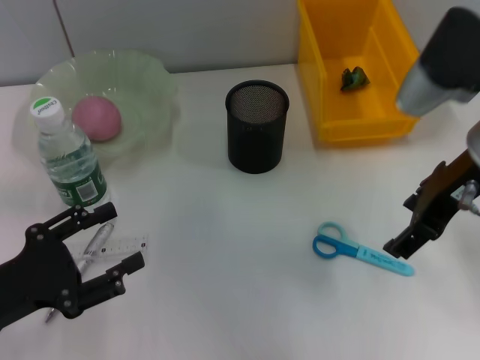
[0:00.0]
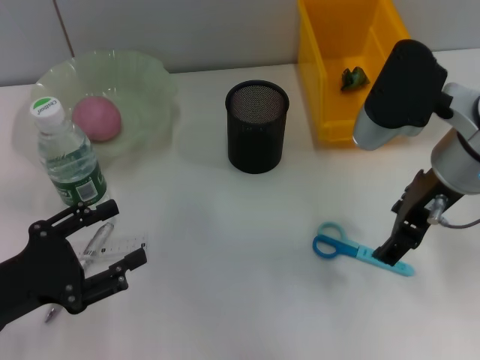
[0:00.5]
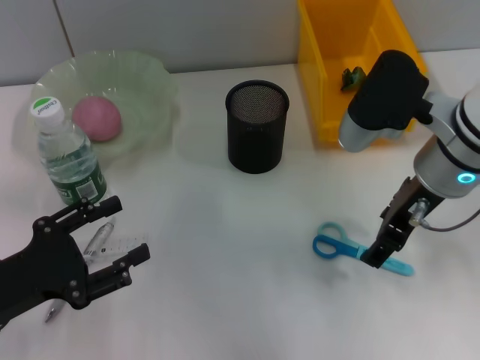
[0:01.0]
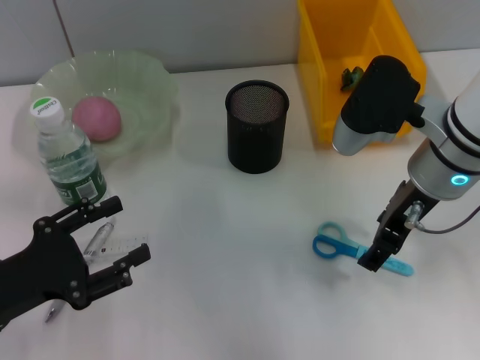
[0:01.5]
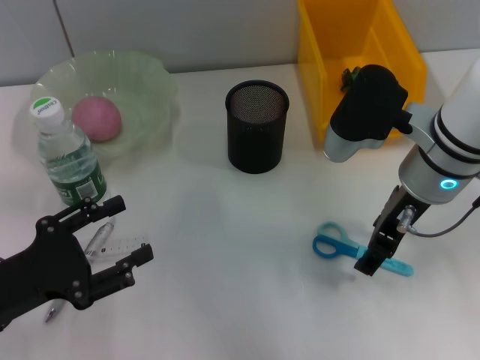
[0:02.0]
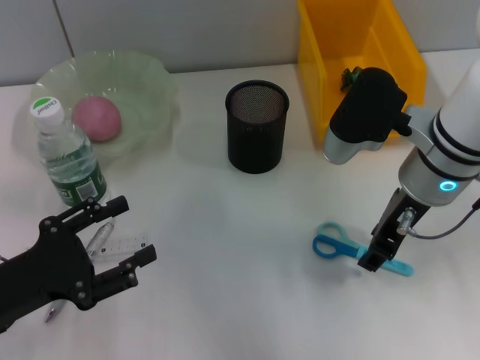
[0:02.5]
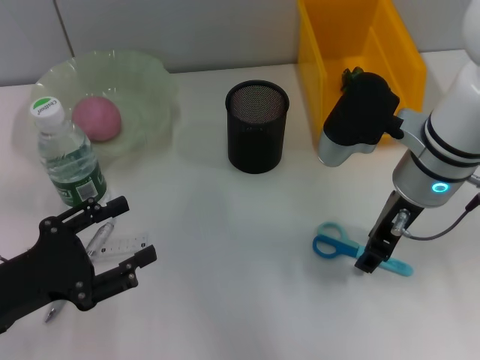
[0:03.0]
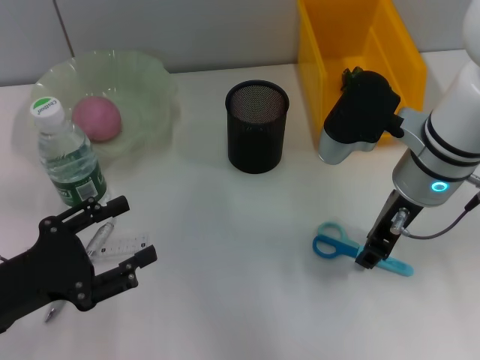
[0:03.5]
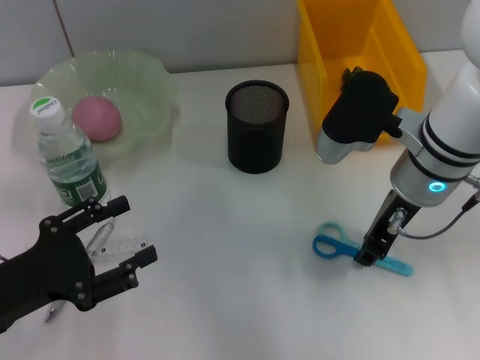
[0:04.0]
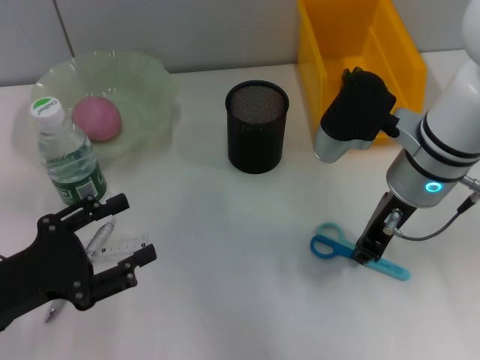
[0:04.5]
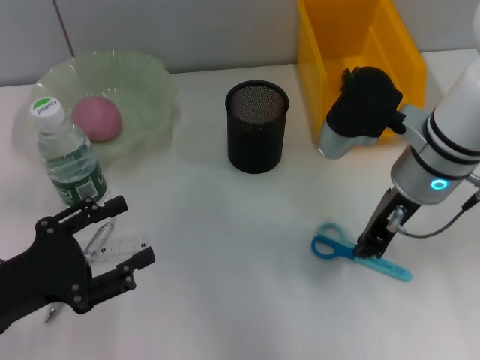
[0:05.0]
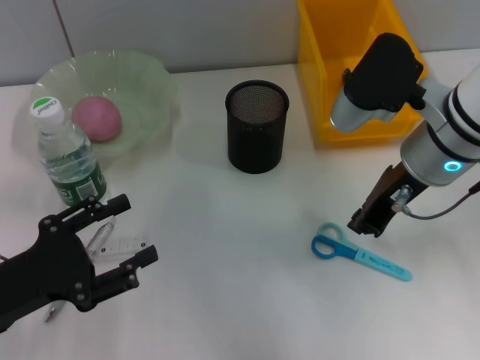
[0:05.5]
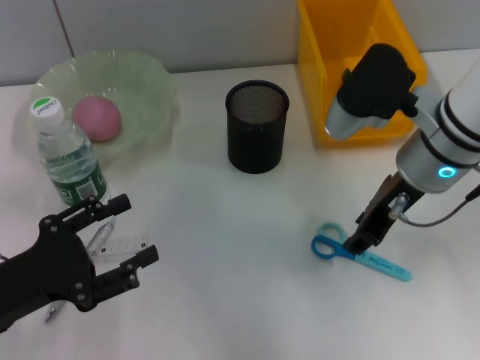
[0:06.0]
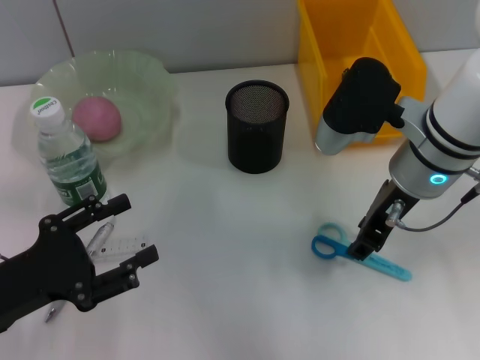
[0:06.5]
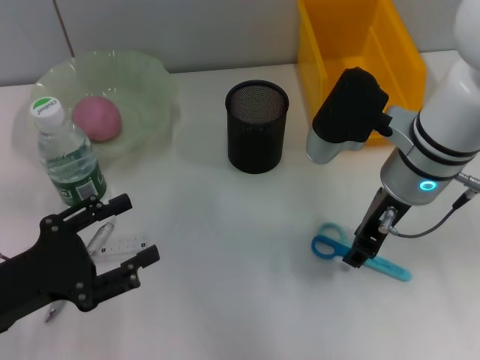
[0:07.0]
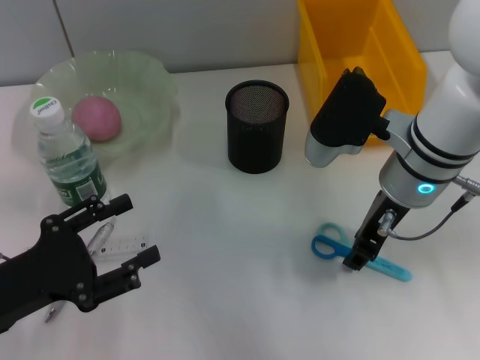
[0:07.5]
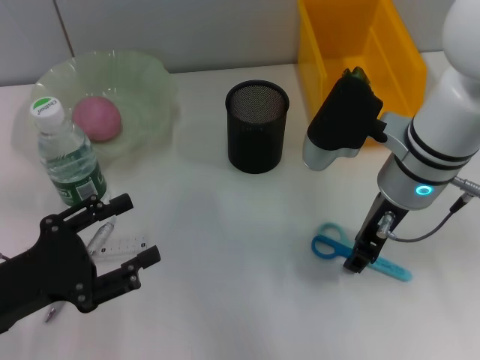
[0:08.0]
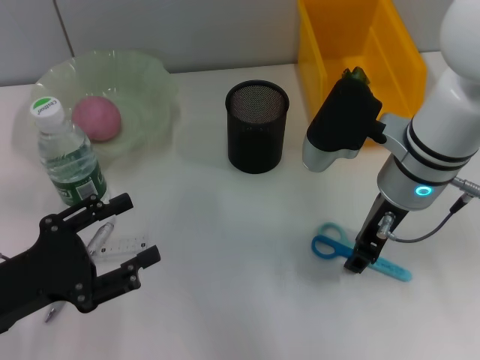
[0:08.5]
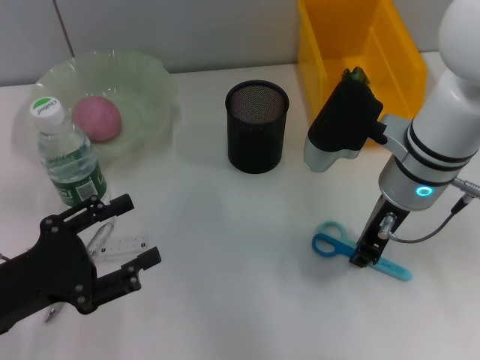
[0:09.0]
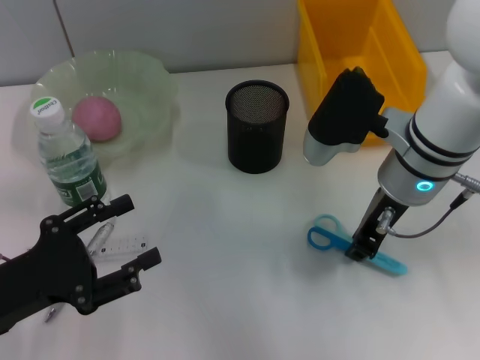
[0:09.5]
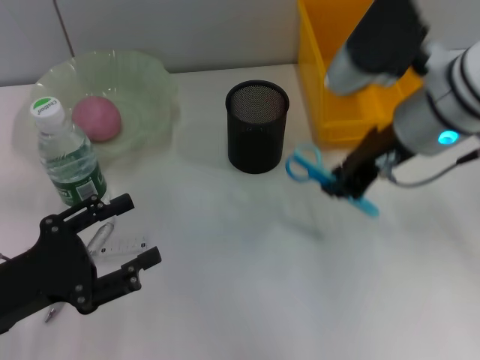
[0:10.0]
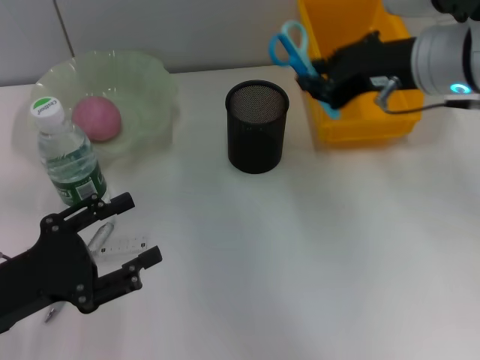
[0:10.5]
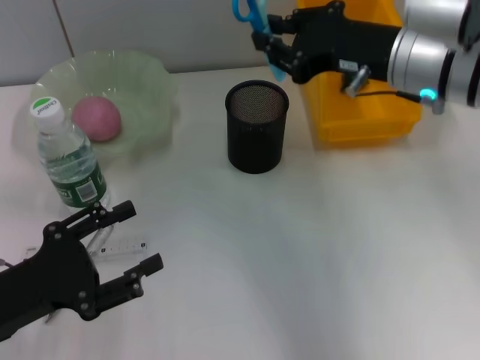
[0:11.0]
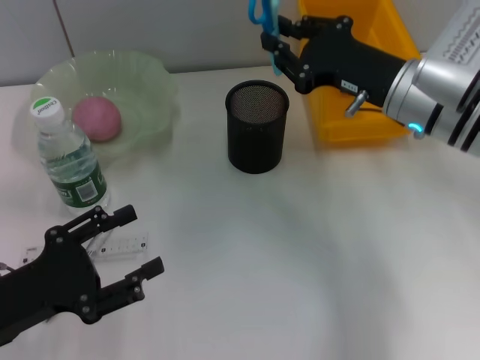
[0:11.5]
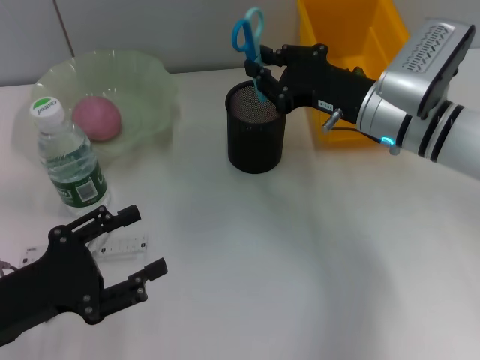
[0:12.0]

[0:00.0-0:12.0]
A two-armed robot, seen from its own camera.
Step, 0:00.0 to 0:09.0: Grab the blue scissors with the right hand.
0:00.0 to 0:02.0: The right gripper goes roughly 5 cm downward.
0:02.0 to 0:04.0: Neither gripper changes place.
0:04.0 to 0:08.0: The grippers move only a little.
0:08.0 to 0:10.0: The right gripper goes about 5 cm upward.
0:10.0 to 0:12.0: The right gripper heads downward, covering some 10 cm.

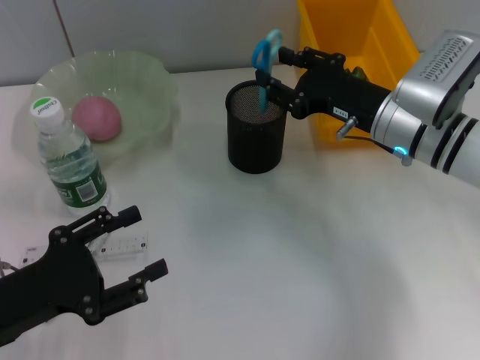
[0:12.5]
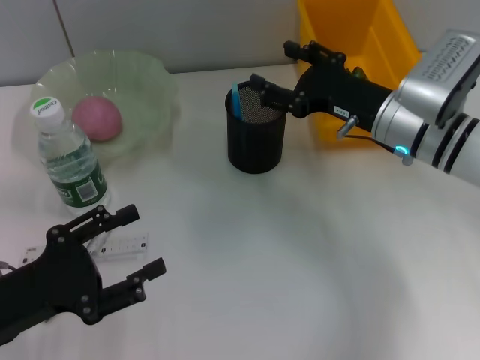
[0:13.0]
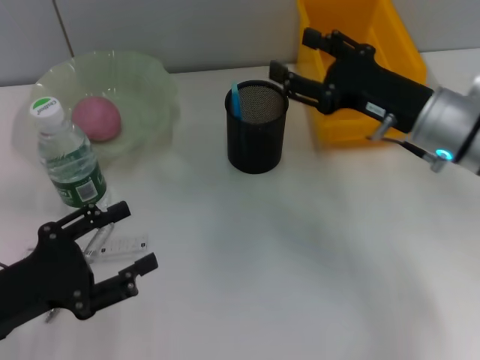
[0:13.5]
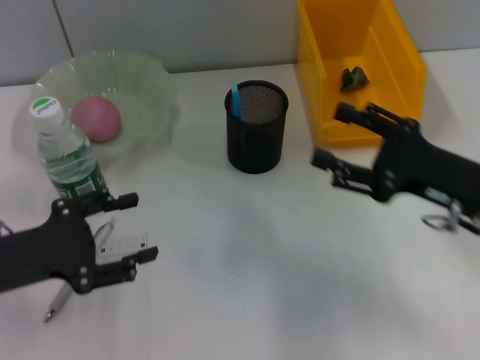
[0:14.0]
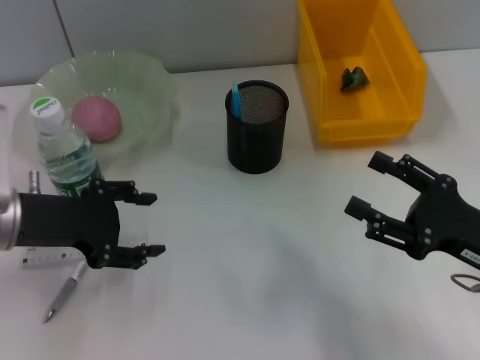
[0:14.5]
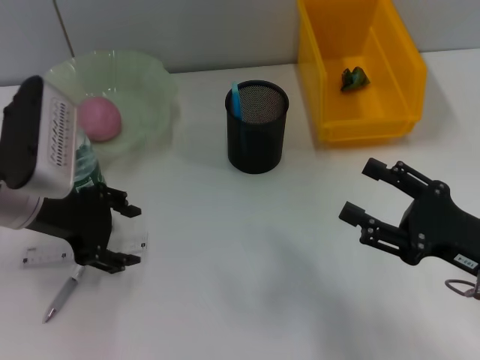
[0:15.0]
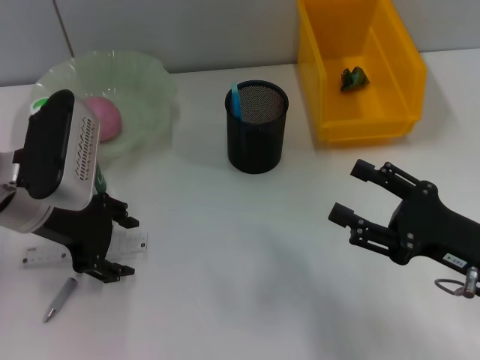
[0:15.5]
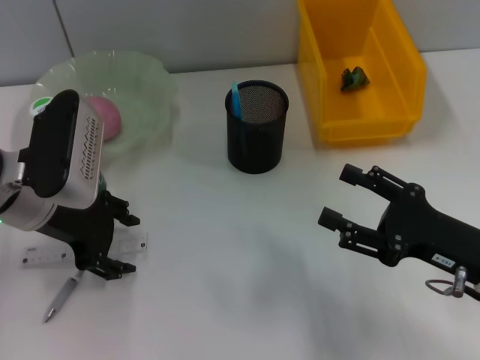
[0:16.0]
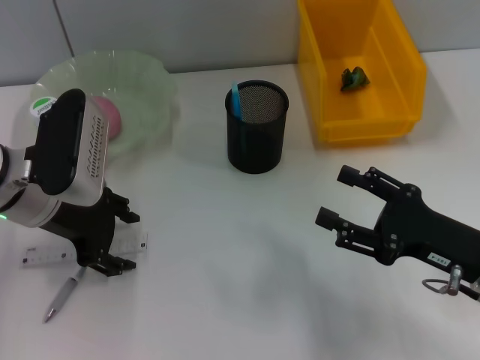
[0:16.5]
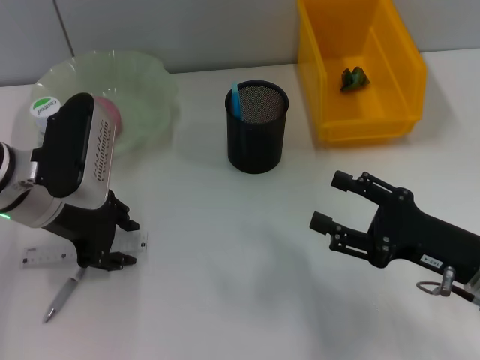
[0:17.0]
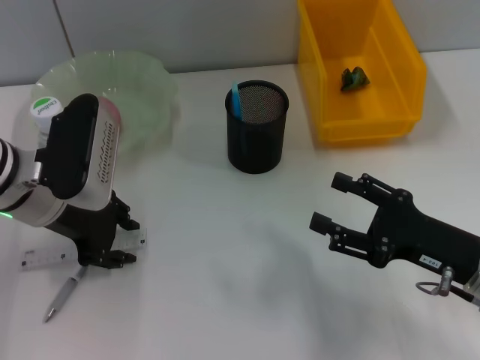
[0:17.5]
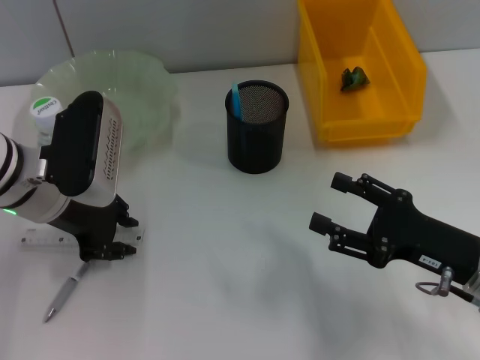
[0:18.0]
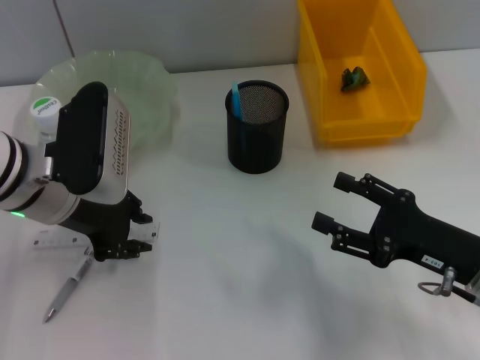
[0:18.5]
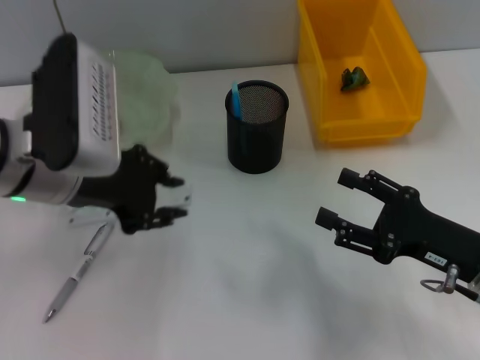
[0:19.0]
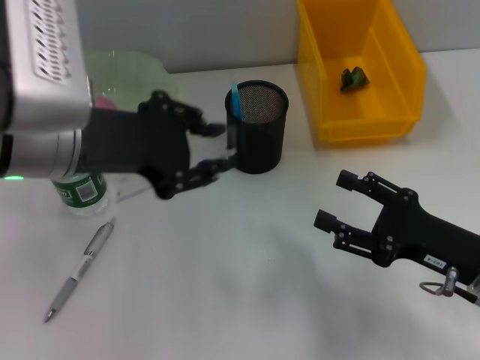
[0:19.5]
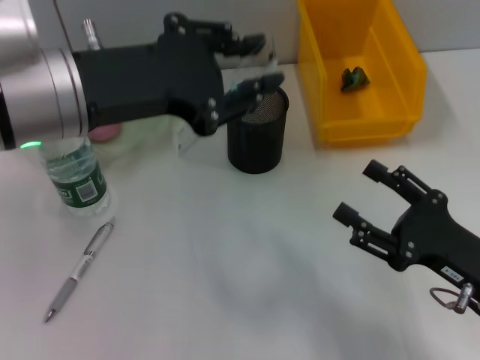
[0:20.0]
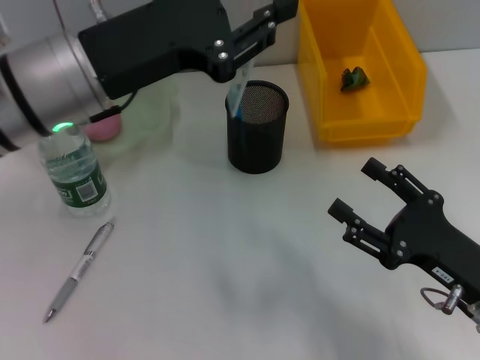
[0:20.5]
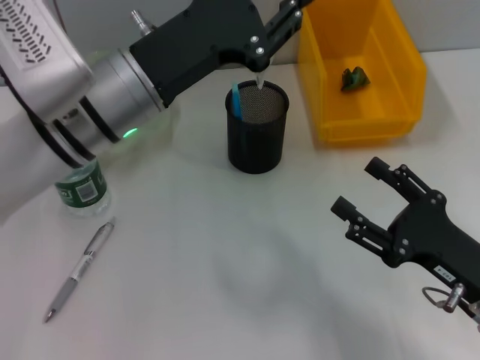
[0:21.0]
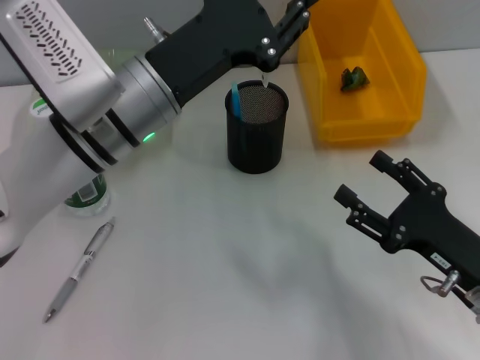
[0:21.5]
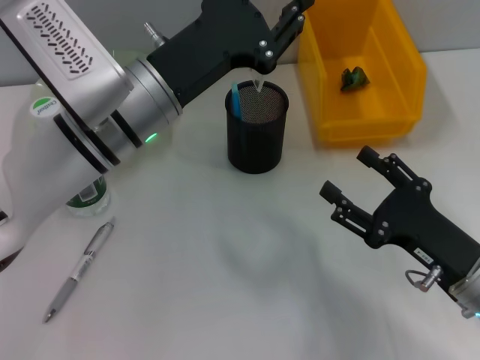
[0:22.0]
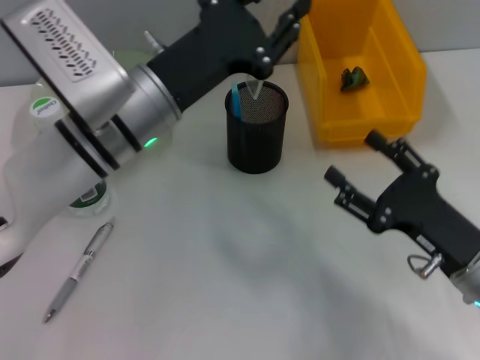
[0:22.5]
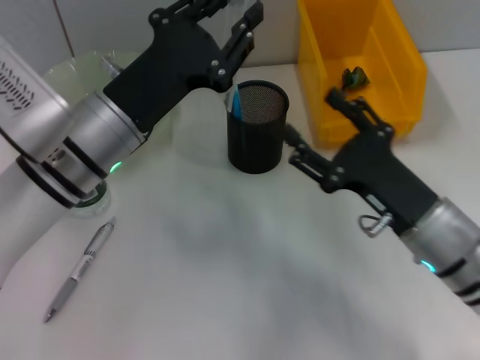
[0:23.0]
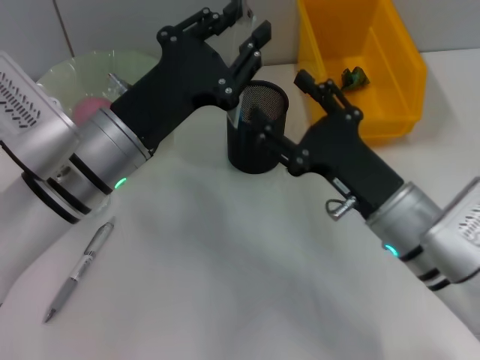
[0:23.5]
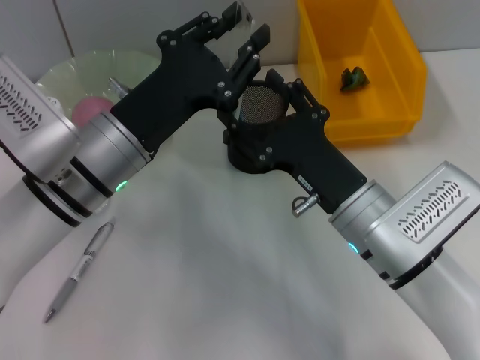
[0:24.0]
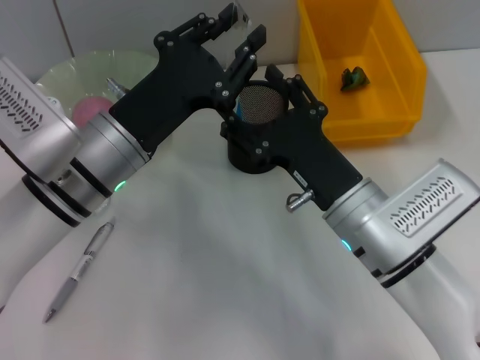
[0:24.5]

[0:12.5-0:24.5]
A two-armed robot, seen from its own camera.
Step, 0:13.5 to 0:18.0: Grab the ruler with the left hand.
0:12.5 to 0:14.5: The right gripper moves backward and to the right, about 20 cm, and opens up. The left gripper travels forward and upward by about 10 cm.
0:14.5 to 0:16.5: The left gripper moves some 5 cm.
0:16.5 to 0:18.5: The left gripper closes up.
0:18.5 to 0:20.5: The left gripper goes about 10 cm upward.
0:20.5 to 0:22.5: The left gripper moves downward, about 5 cm.
0:22.5 to 0:24.5: The right gripper goes about 15 cm to the left and forward.

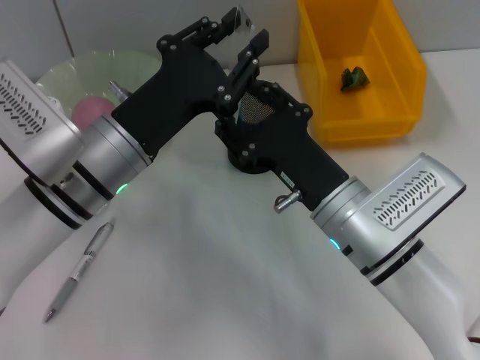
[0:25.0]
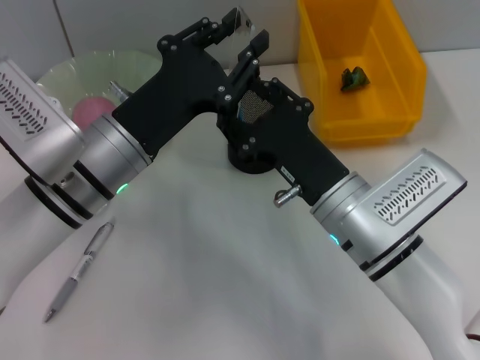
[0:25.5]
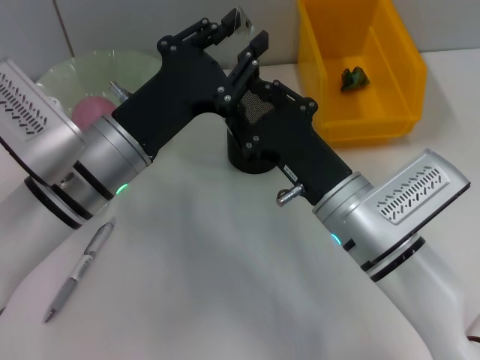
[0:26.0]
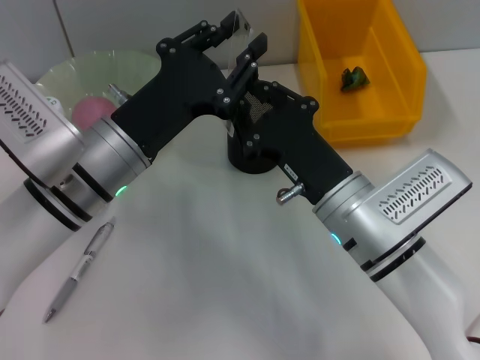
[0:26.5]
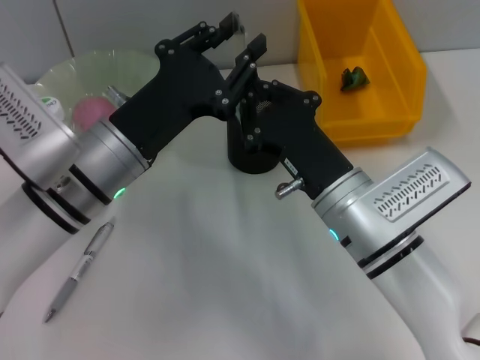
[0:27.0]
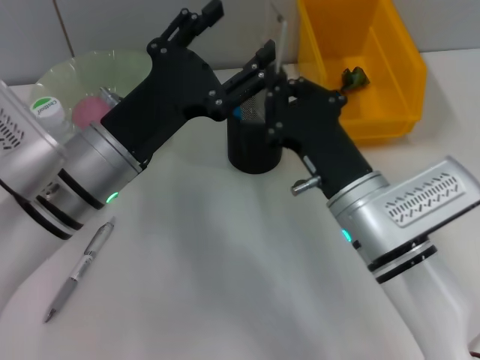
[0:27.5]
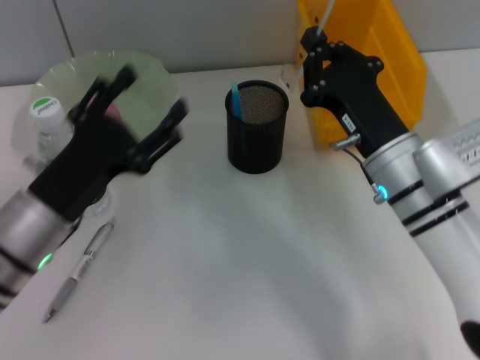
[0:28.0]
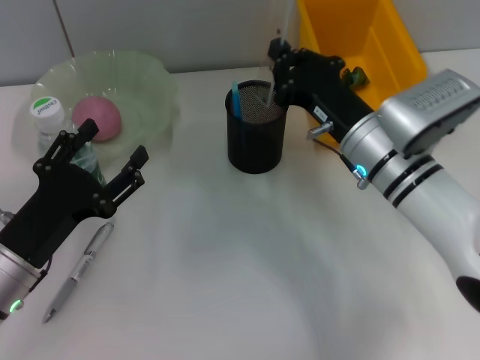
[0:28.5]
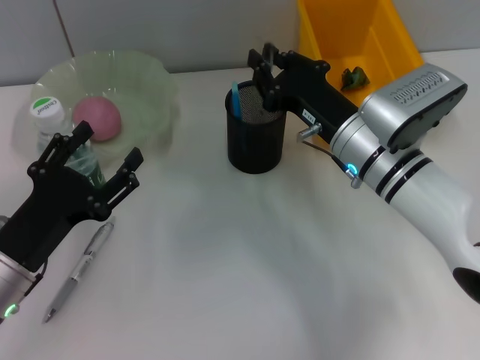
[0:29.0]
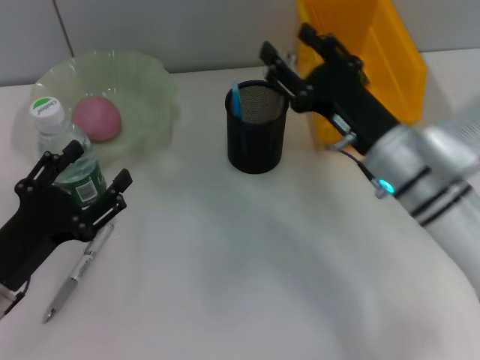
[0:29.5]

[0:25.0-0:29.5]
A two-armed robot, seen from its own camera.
Step, 0:25.0 to 0:27.5: Pass the ruler from the left hand to the right hand.
0:25.0 to 0:27.0: The right gripper closes its fingers.
0:27.0 to 0:29.5: The left gripper is displaced to the left, backward and downward by about 15 cm, and opens, while the right gripper travels to the right by approximately 5 cm, and opens.
